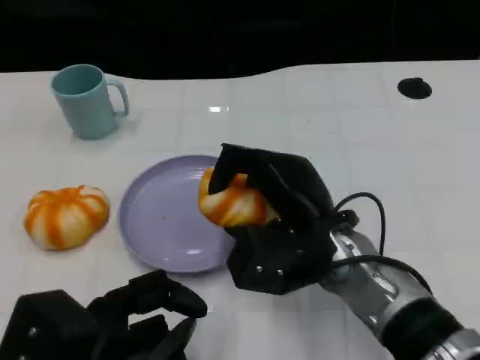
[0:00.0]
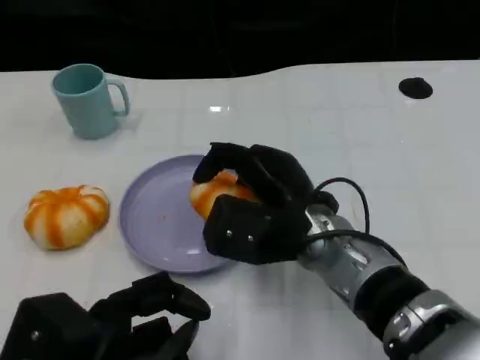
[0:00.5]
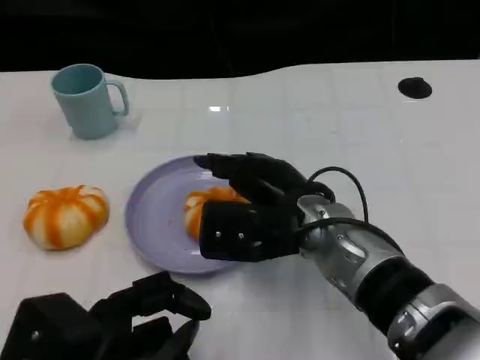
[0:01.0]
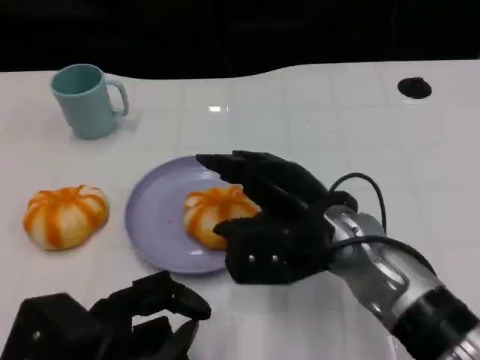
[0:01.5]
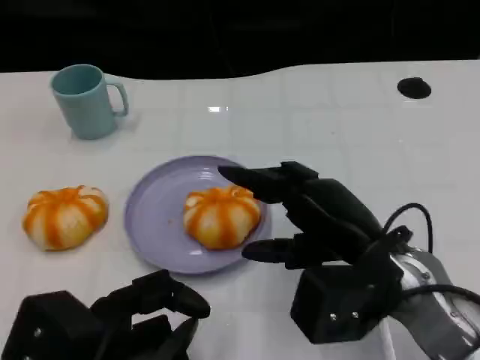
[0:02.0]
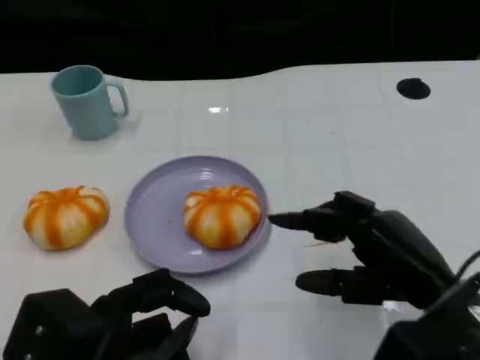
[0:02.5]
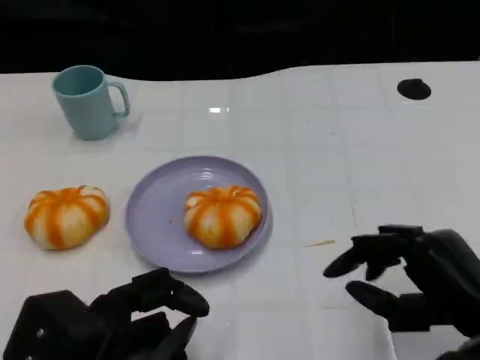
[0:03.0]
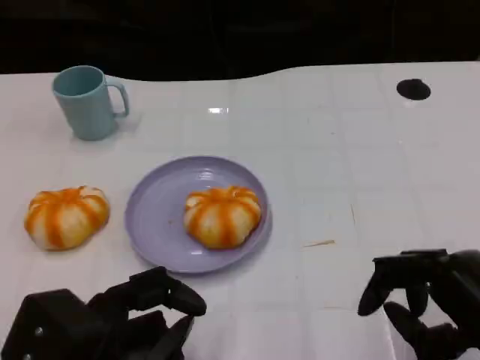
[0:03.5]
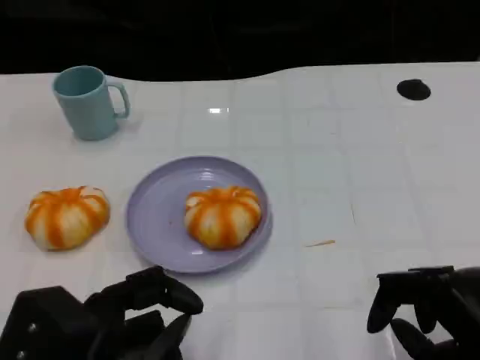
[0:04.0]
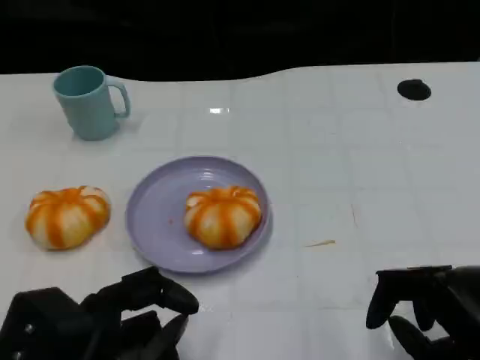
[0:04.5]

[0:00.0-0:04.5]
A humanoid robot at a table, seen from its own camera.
Task of the whole recording: Grasp the bread from the table and place it into the plate.
0:00.0 to 0:02.0: The right hand moves to the right, about 10 cm.
0:02.0 to 0:04.5: The right hand travels to the right and backward by approximately 15 cm.

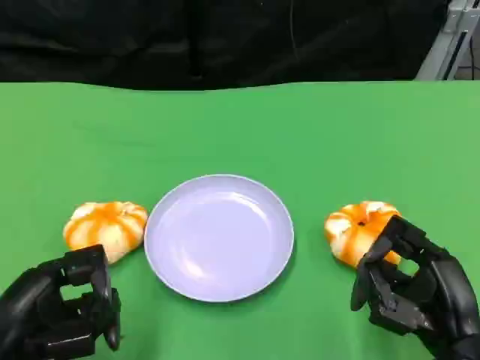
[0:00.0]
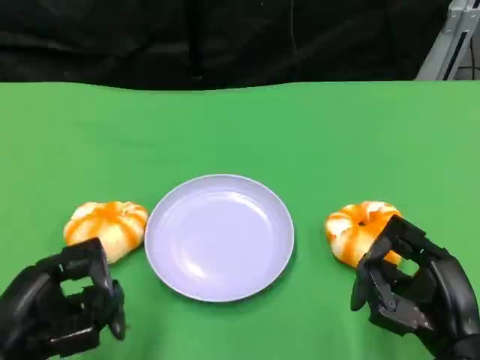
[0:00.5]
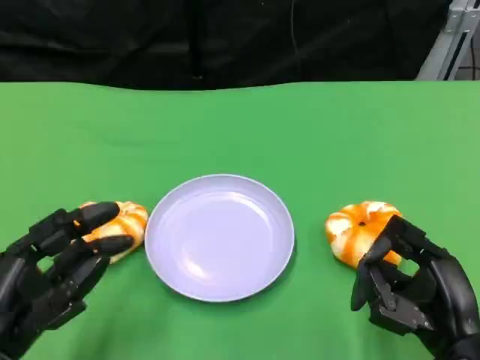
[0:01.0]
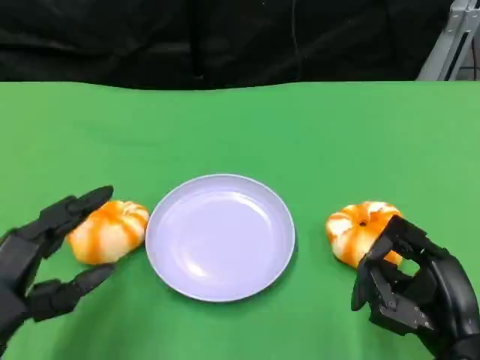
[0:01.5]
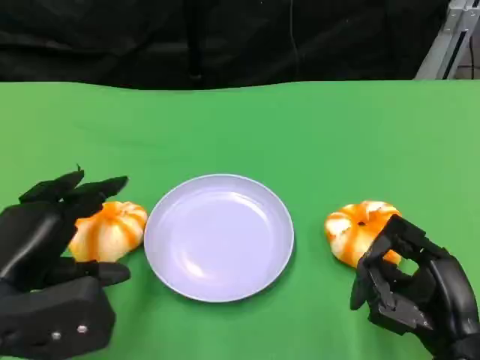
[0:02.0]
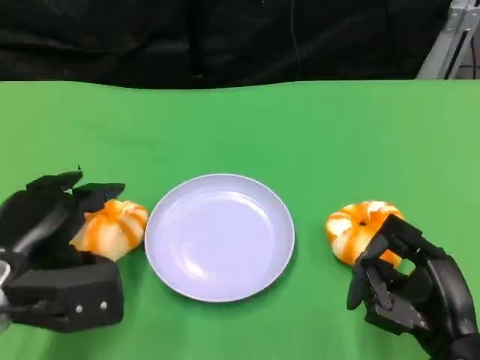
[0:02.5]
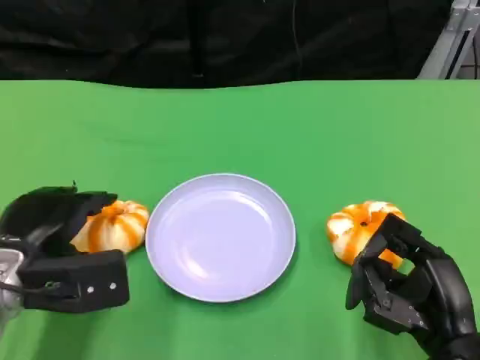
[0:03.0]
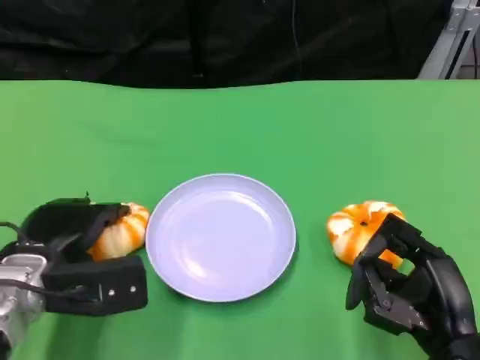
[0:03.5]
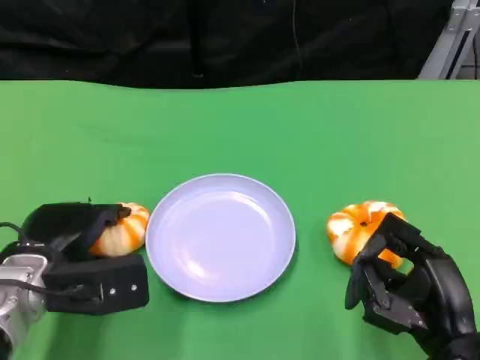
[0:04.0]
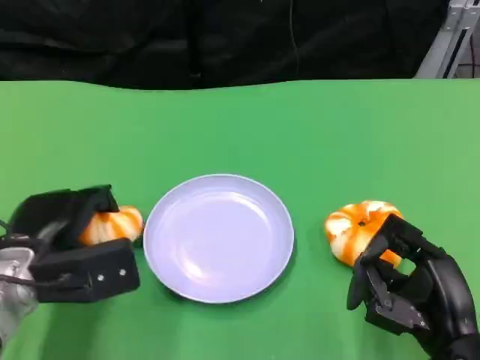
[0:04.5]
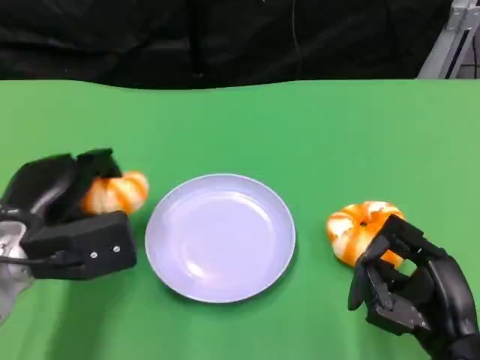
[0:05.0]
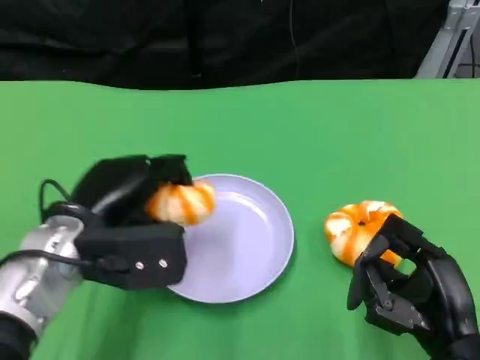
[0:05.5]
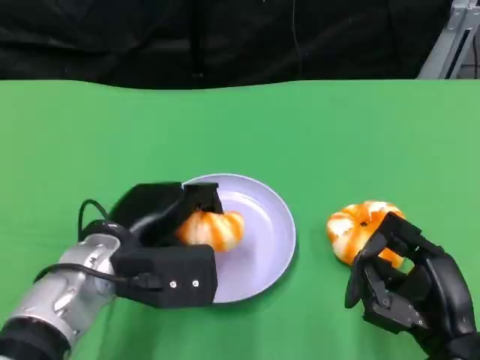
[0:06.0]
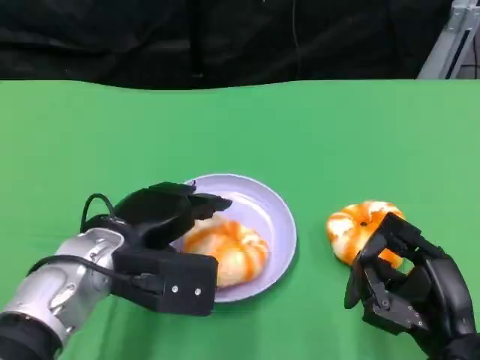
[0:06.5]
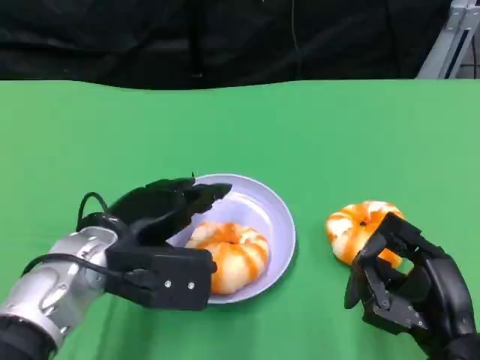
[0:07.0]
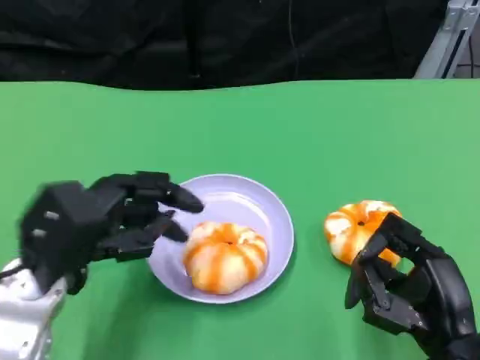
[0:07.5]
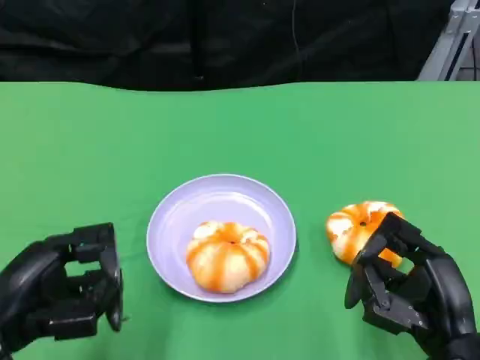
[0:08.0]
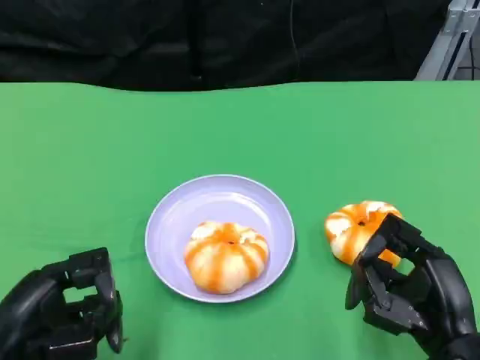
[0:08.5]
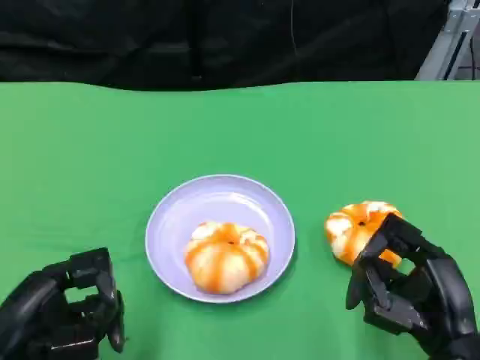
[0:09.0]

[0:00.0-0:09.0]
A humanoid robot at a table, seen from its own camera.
Task of the whole recording: Grasp the bread from the table and place it into the plate.
0:00.0 to 0:02.0: The left hand changes place by about 5 cm.
0:02.0 to 0:04.5: The left hand shifts roughly 5 cm forward.
0:04.5 to 0:07.0: The left hand shifts some 5 cm to the right.
0:07.0 to 0:09.0: The left hand is displaced backward and to the left by roughly 15 cm.

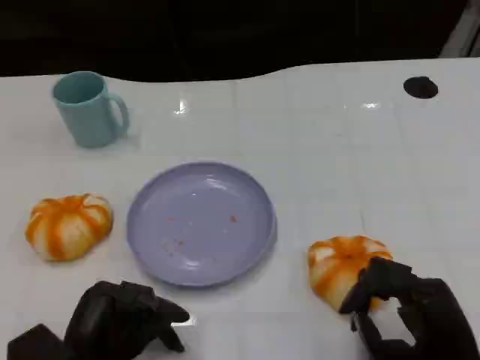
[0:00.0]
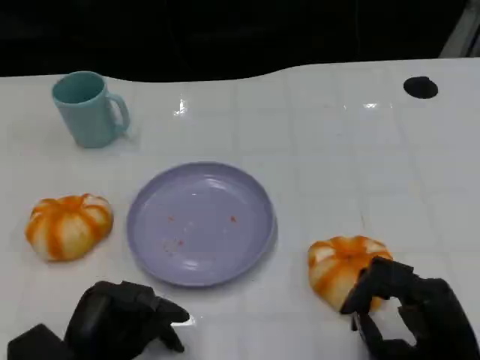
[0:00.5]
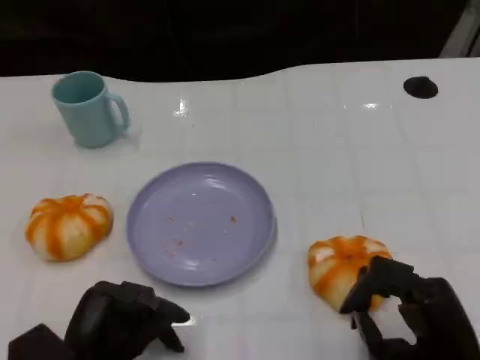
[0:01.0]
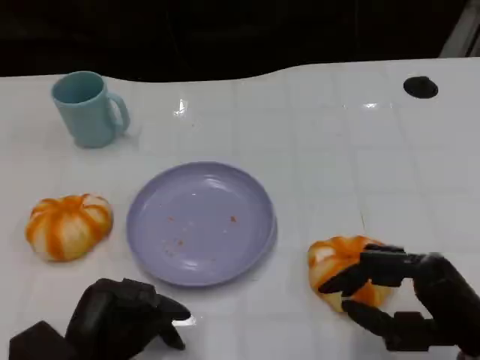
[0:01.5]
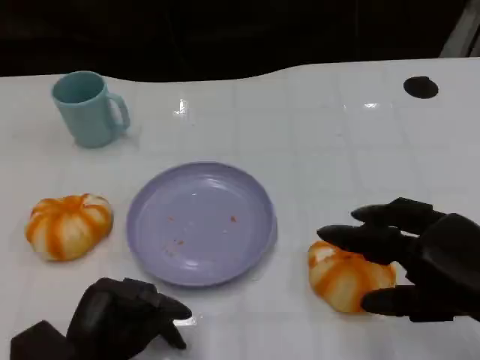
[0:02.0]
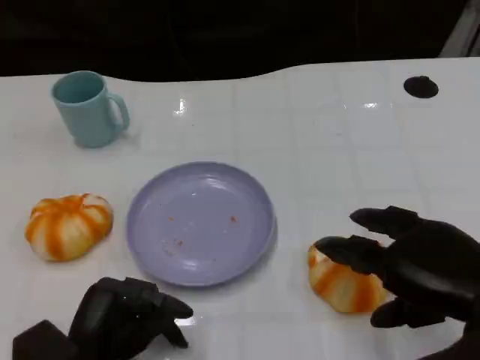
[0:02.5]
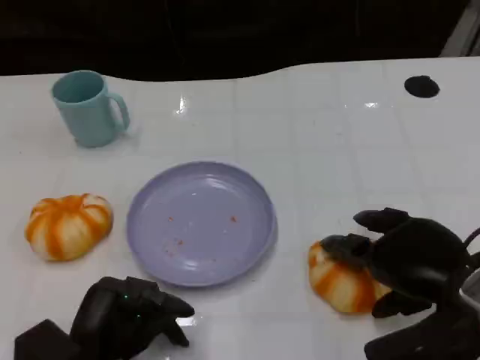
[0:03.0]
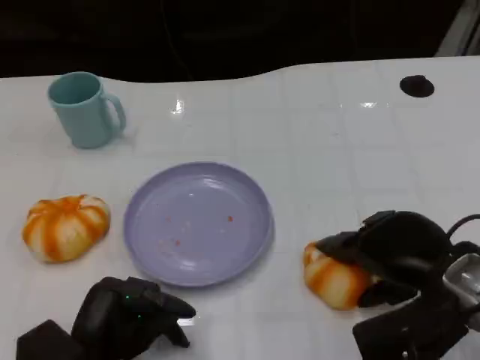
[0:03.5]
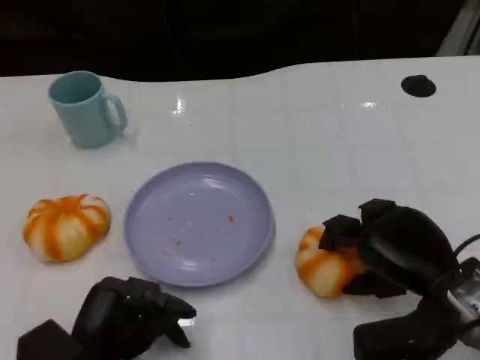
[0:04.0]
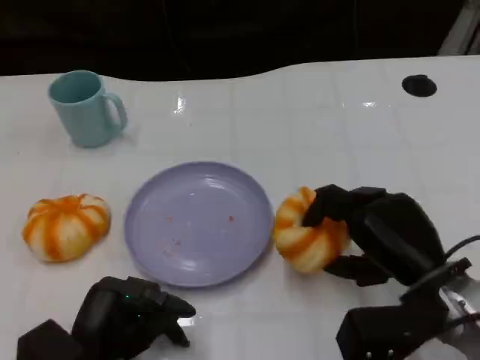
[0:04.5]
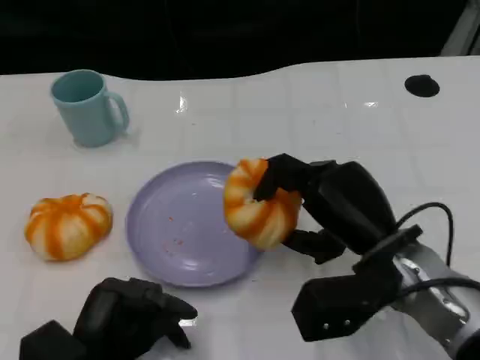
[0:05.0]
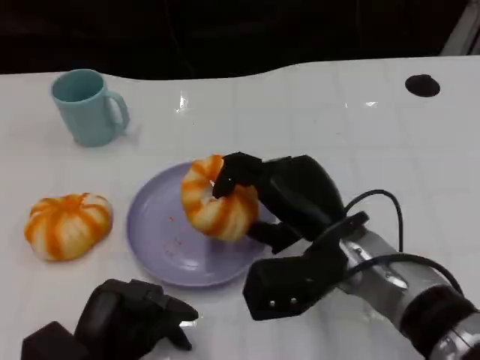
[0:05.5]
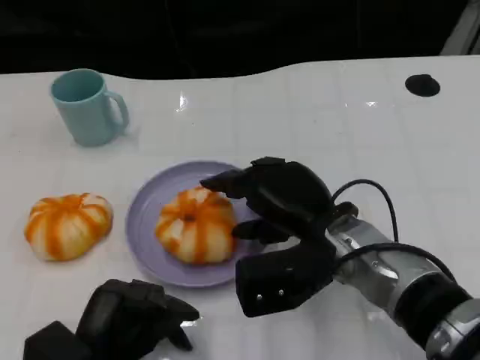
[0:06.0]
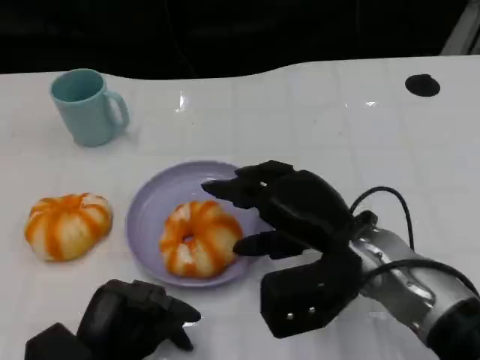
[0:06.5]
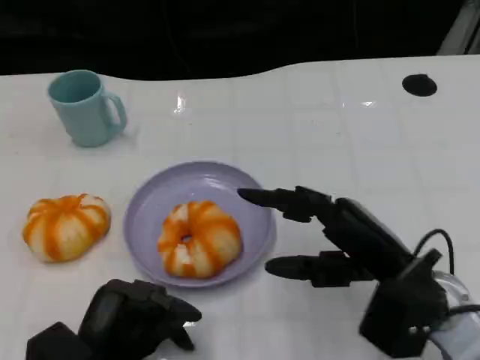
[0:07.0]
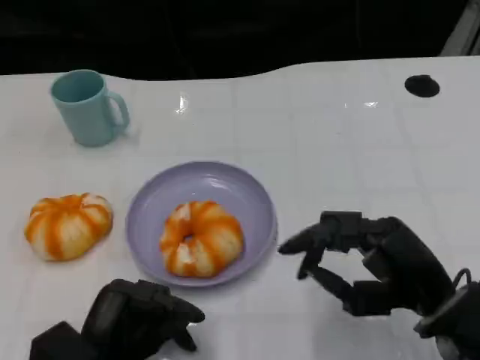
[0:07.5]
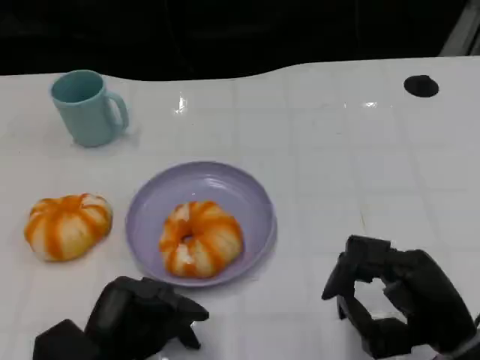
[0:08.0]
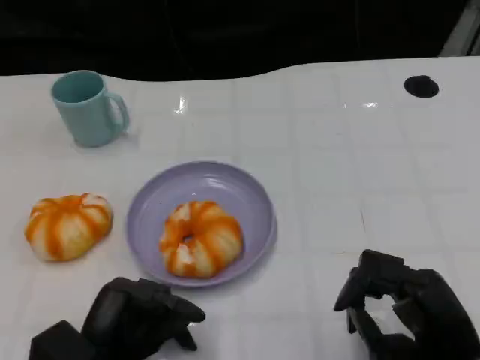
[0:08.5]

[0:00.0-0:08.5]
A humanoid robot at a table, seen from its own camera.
Task of the whole recording: Grasp the bread from the table and place it into the plate.
0:00.0 to 0:02.0: The right hand moves upward, approximately 10 cm.
0:02.0 to 0:04.0: The right hand goes about 10 cm downward and forward.
0:04.0 to 0:06.5: The right hand travels to the left by approximately 10 cm.
0:06.5 to 0:08.5: The right hand shifts some 15 cm to the right, backward and downward.

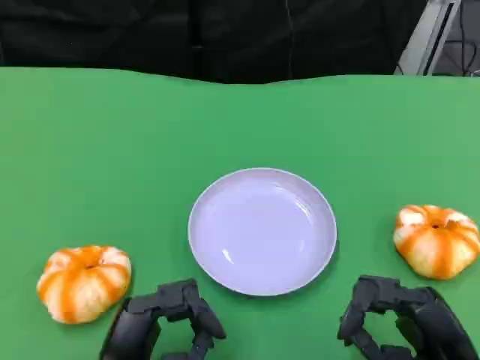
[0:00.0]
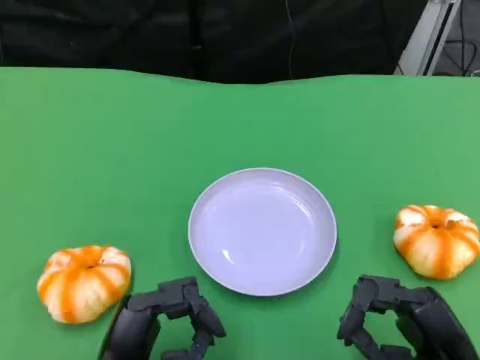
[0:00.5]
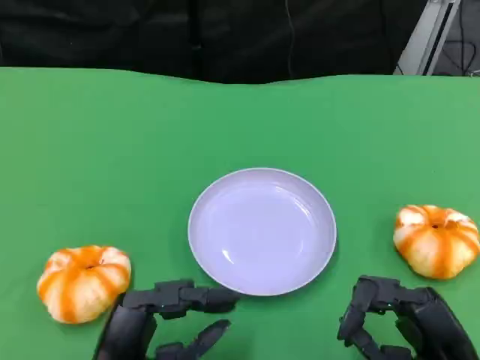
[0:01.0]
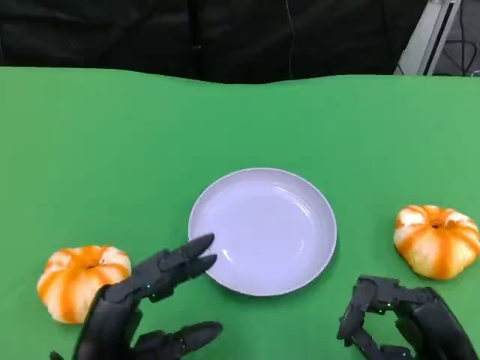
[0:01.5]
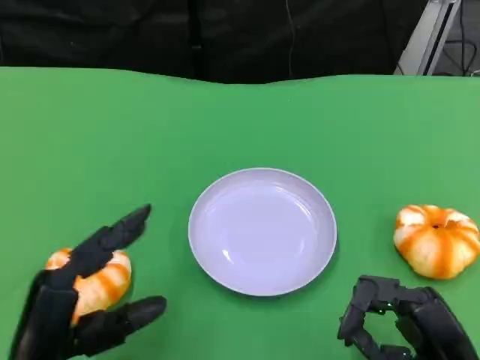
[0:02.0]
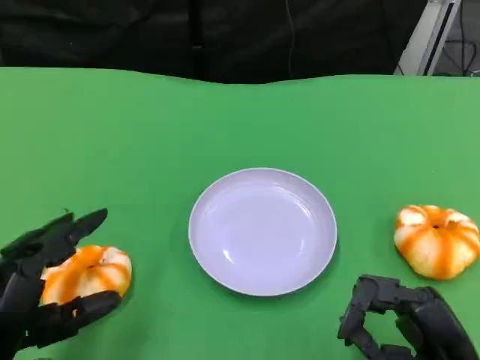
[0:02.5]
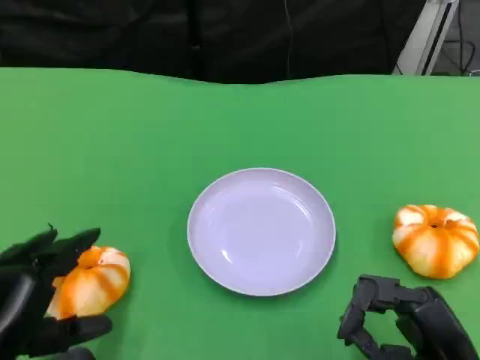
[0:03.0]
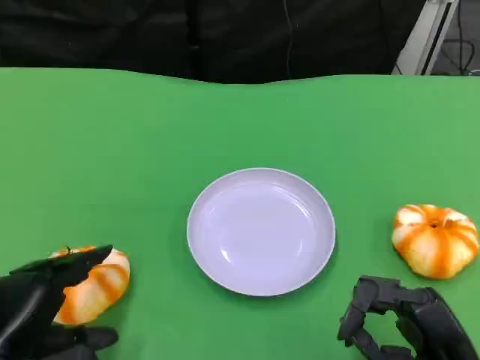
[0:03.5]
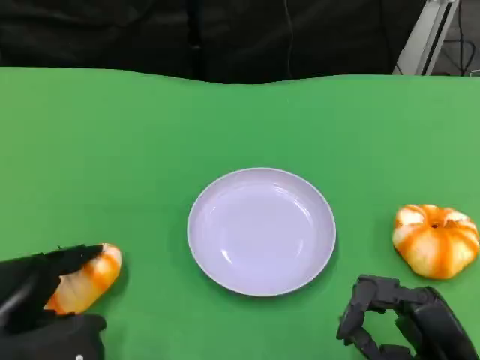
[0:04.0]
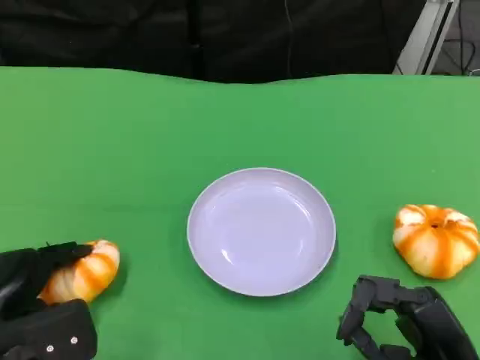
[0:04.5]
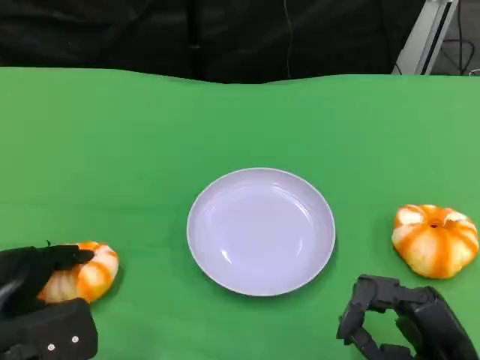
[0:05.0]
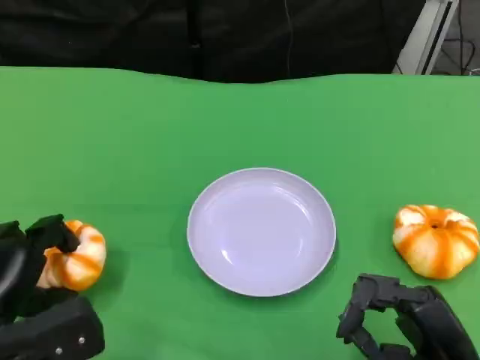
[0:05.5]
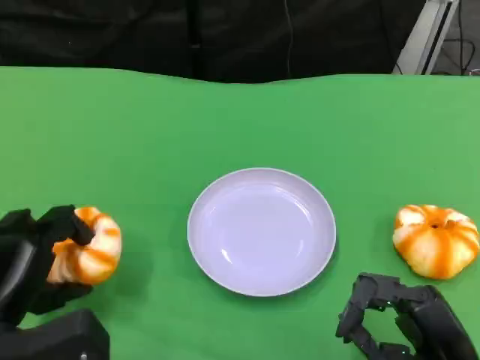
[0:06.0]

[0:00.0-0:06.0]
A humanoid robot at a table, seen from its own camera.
Task of the whole recording: Grasp the bread from the table and place it into the plate.
0:00.0 to 0:02.0: The left hand travels to the left by approximately 5 cm.
0:02.0 to 0:04.0: The left hand changes place by roughly 5 cm.
